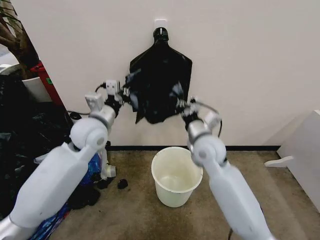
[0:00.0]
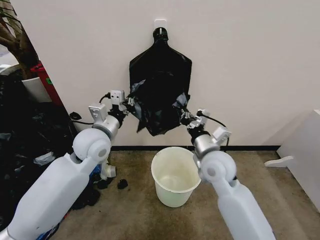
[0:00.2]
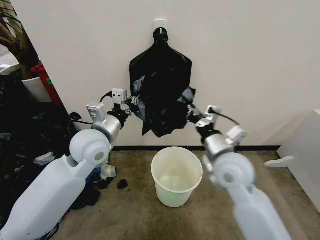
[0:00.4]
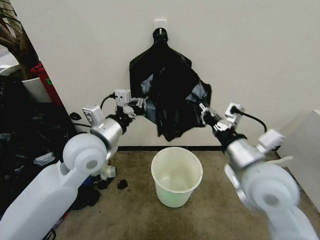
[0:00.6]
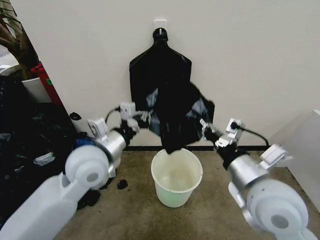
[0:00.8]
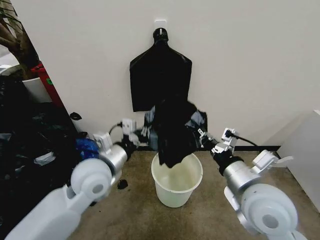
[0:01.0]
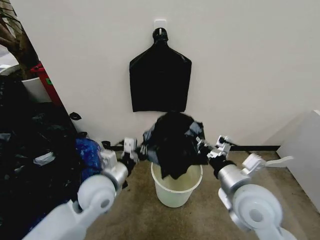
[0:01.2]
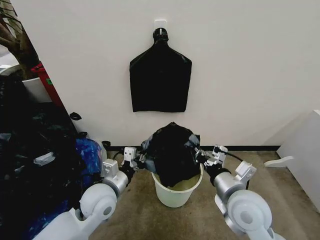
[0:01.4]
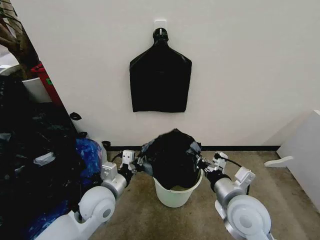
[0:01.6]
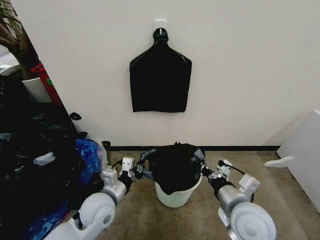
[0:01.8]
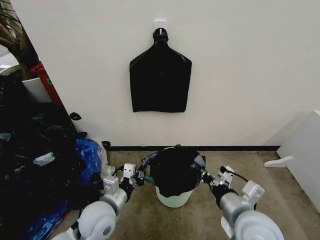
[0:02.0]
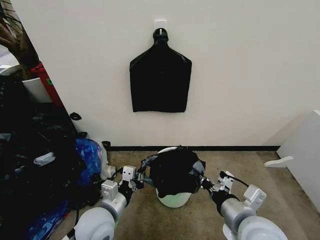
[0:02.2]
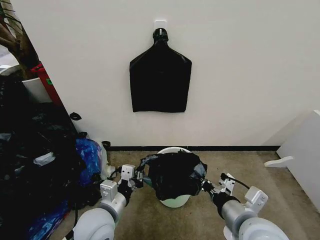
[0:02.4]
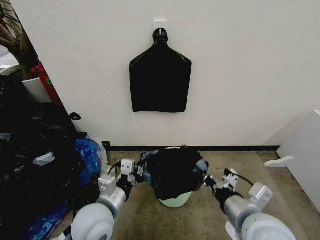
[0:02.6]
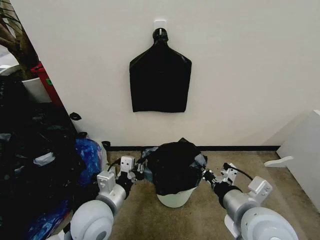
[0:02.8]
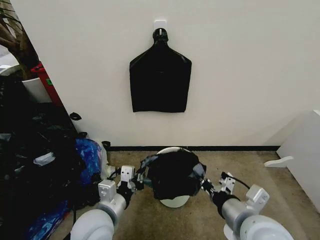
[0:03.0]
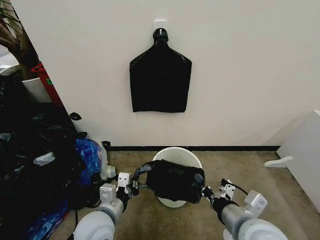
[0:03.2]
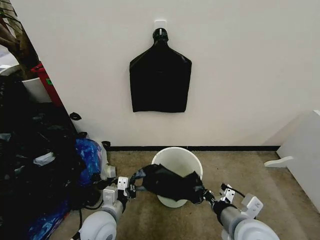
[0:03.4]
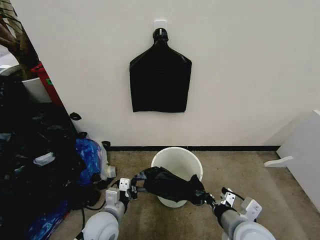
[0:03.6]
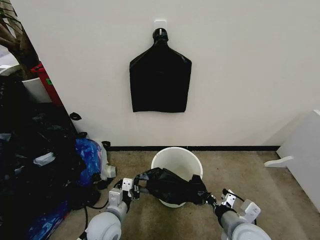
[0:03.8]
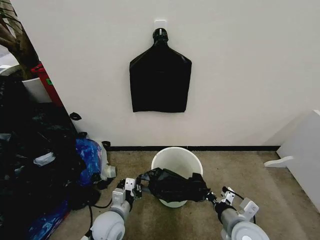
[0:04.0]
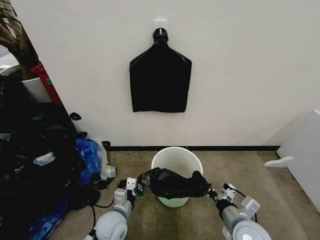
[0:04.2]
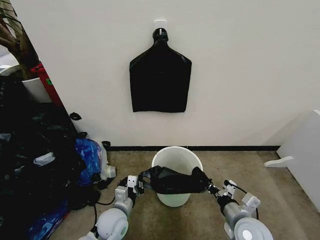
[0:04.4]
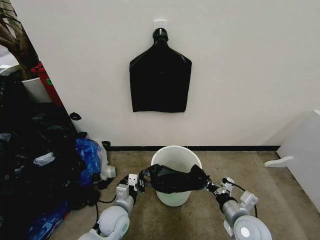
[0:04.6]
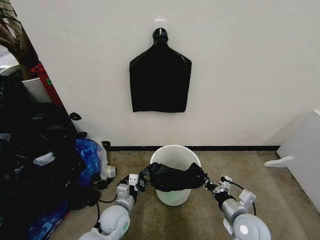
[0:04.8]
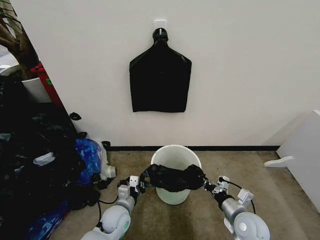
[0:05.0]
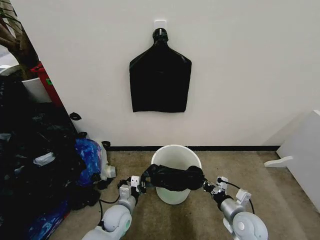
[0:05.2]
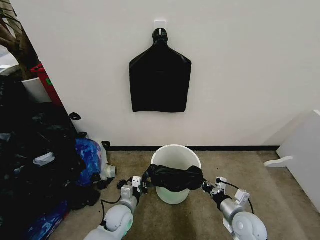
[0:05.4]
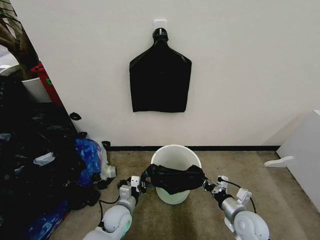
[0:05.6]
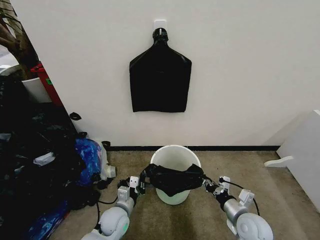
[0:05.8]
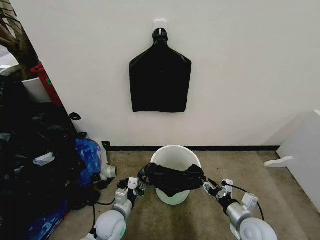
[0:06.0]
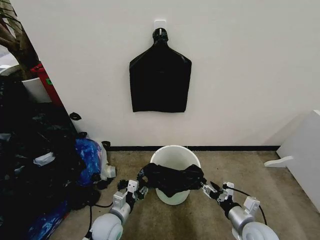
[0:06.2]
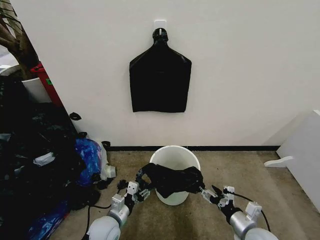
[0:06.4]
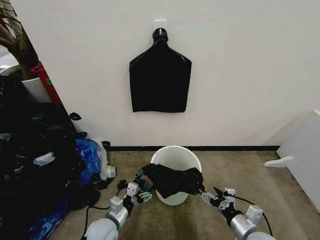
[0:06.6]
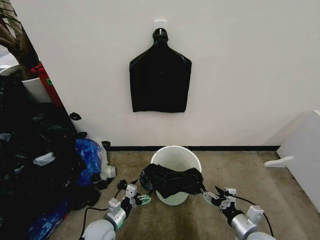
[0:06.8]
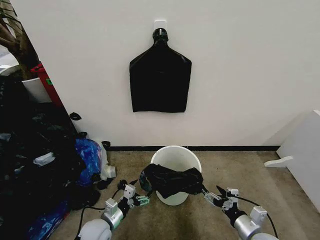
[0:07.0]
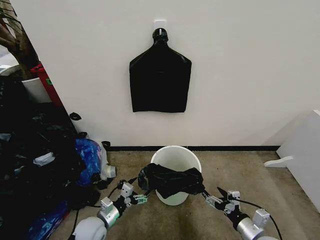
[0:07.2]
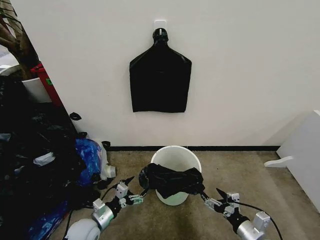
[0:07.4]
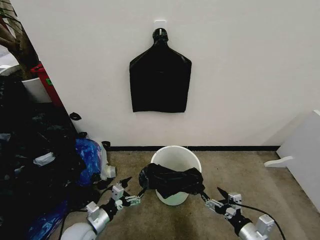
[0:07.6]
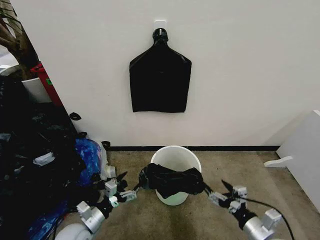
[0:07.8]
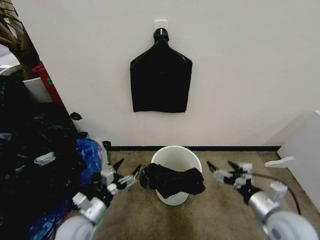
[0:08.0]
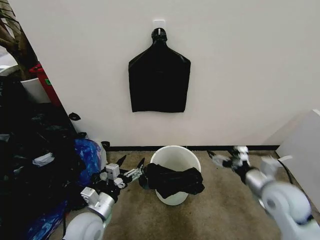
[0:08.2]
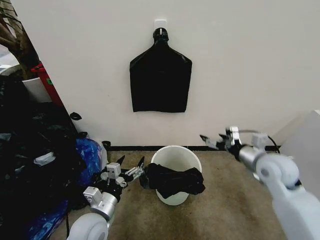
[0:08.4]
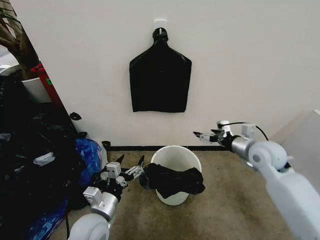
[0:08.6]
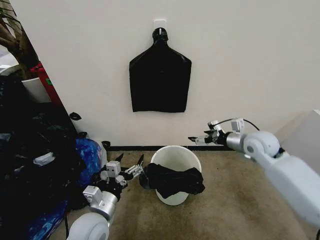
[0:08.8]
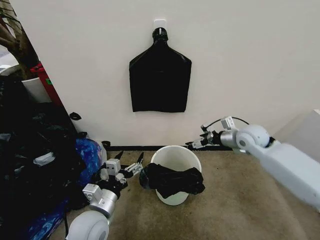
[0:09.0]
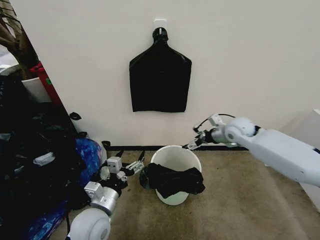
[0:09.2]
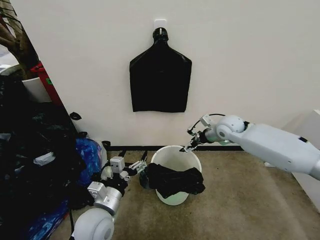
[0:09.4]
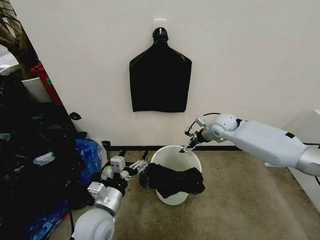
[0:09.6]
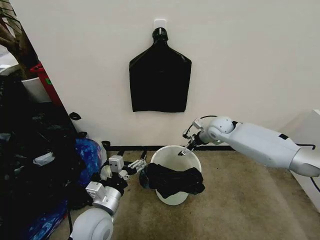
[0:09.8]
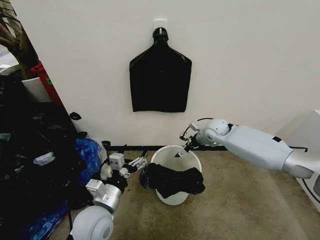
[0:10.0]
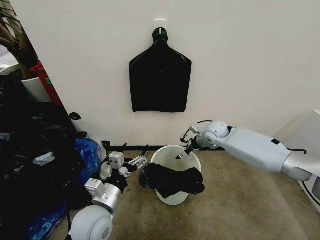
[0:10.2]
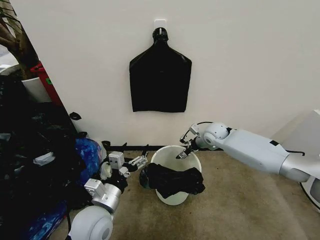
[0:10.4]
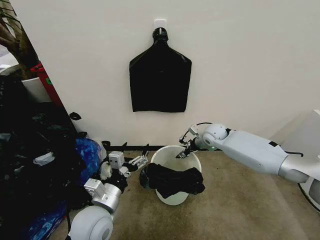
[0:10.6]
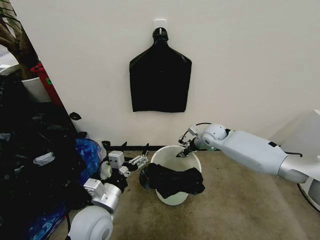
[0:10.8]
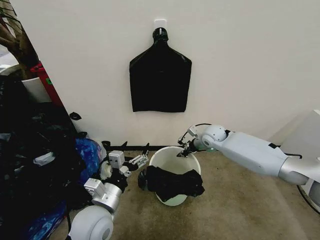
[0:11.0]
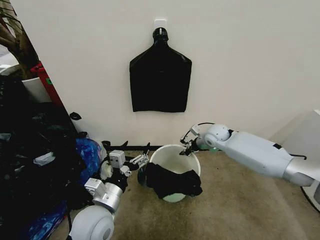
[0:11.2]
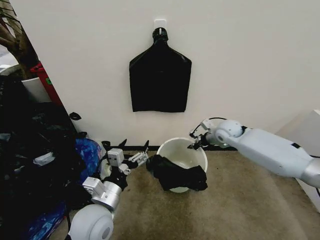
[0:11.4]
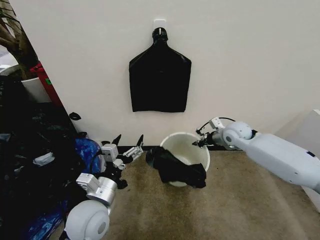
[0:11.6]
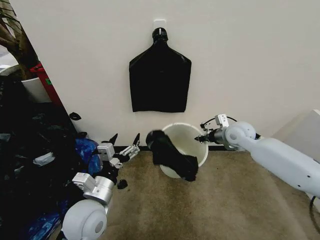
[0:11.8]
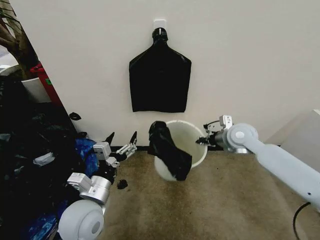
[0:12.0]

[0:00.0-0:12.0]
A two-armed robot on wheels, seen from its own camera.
Task of the whole recording: Place the garbage bag over the trash bin.
0.0 to 1.6 s: The right gripper travels backward and to the right by roughly 20 cm. The left gripper travels downward and backward by roughly 20 cm.
1.6 to 3.0 s: Both grippers move backward, about 5 cm.
3.0 to 4.4 s: The two grippers go about 15 cm downward.
4.4 to 6.0 s: The right gripper ends up approximately 5 cm from where it was, and opens up.
6.0 to 7.6 s: The left gripper travels to the left by some 10 cm, and opens its fingers. Meanwhile the right gripper shifts roughly 5 cm backward, and opens its fingers.
7.6 to 9.0 s: The right gripper goes some 35 cm forward and upward. Meanwhile the left gripper heads upward and to the right, covering some 15 cm.
9.0 to 10.4 s: The right gripper travels forward, to the left and downward by approximately 15 cm.
10.4 to 12.0 s: The right gripper travels backward and upward by approximately 15 cm, and closes.

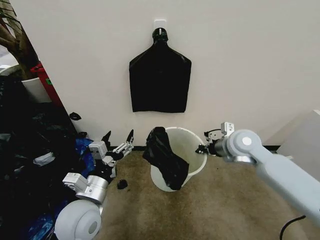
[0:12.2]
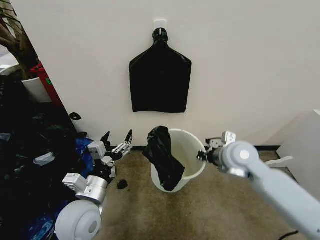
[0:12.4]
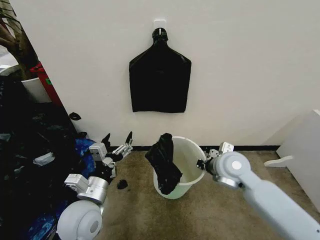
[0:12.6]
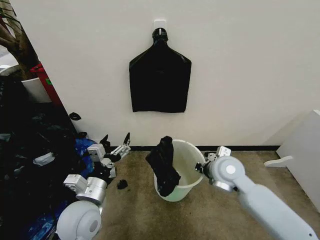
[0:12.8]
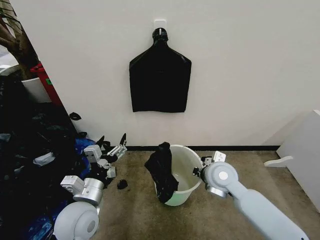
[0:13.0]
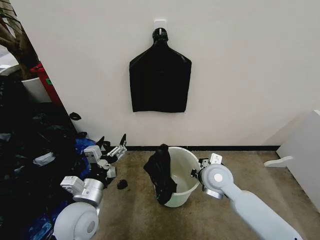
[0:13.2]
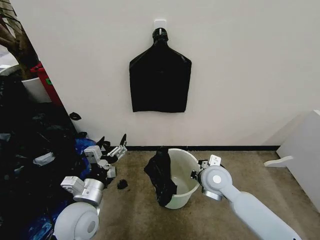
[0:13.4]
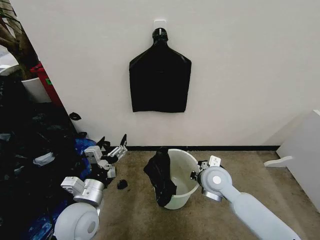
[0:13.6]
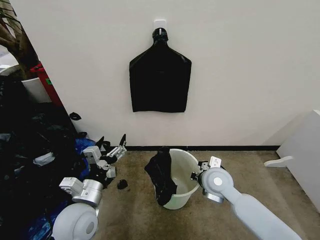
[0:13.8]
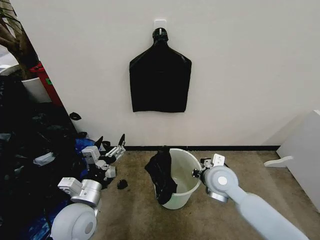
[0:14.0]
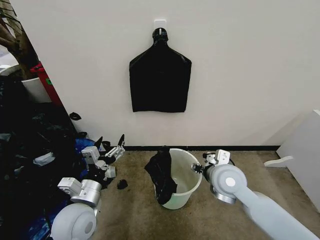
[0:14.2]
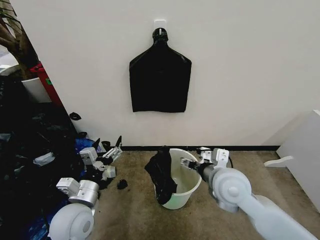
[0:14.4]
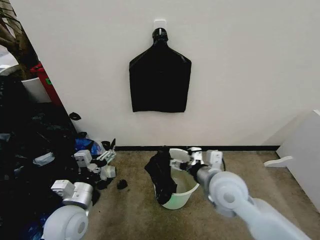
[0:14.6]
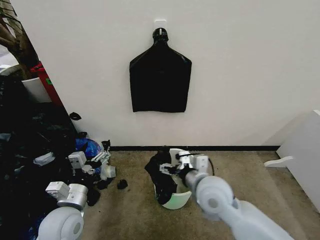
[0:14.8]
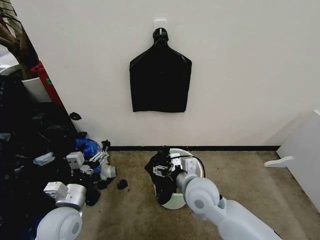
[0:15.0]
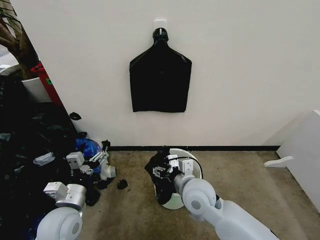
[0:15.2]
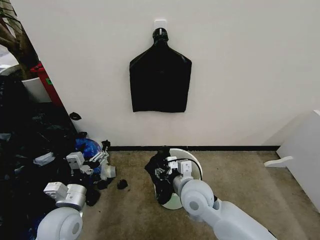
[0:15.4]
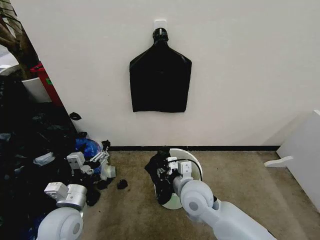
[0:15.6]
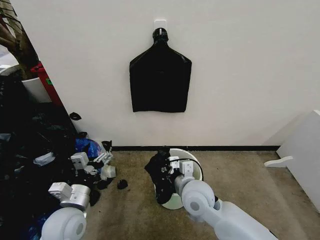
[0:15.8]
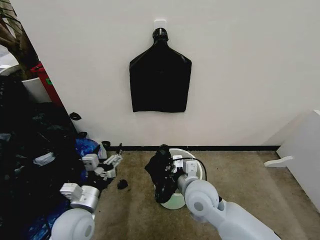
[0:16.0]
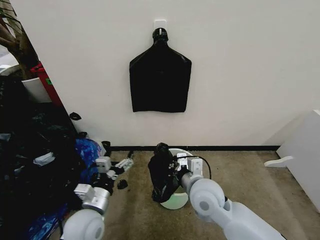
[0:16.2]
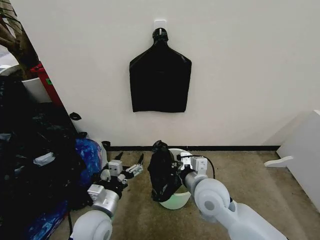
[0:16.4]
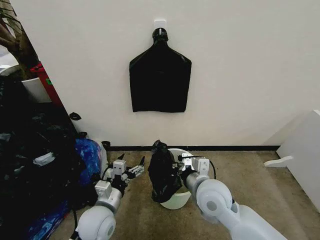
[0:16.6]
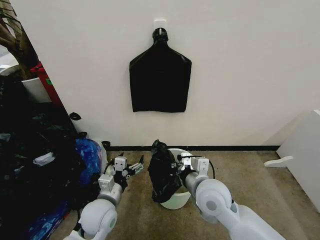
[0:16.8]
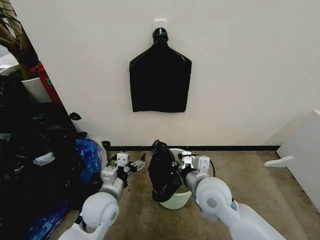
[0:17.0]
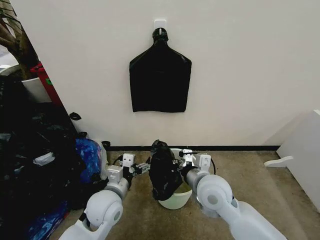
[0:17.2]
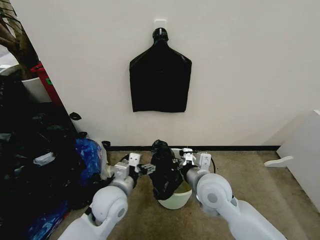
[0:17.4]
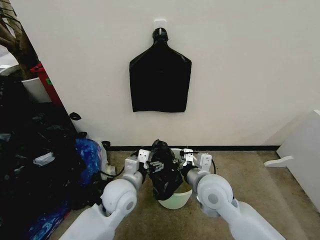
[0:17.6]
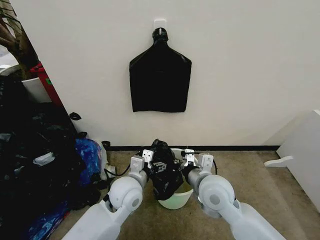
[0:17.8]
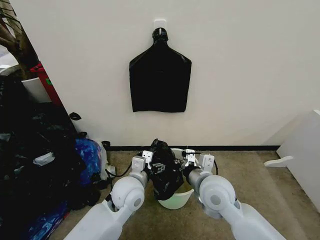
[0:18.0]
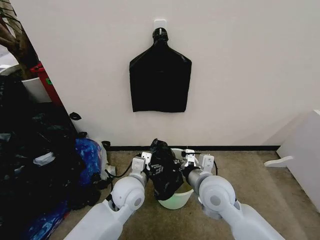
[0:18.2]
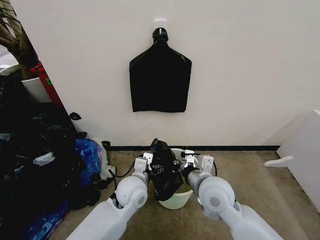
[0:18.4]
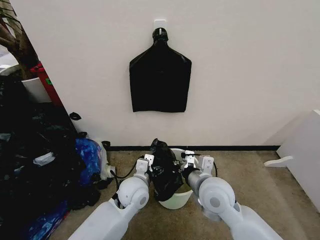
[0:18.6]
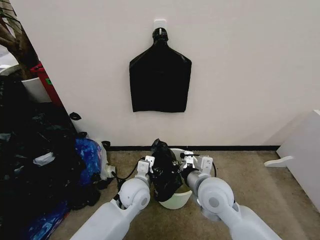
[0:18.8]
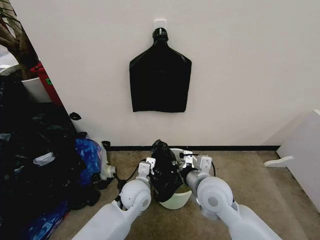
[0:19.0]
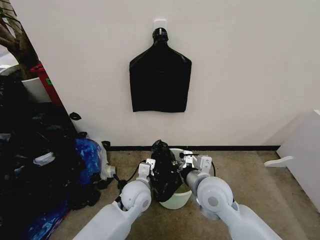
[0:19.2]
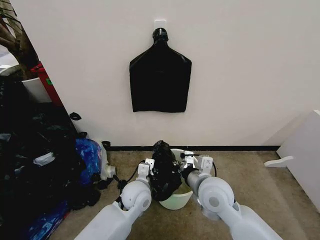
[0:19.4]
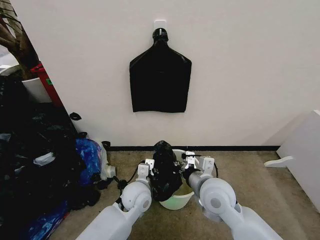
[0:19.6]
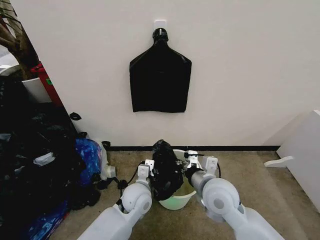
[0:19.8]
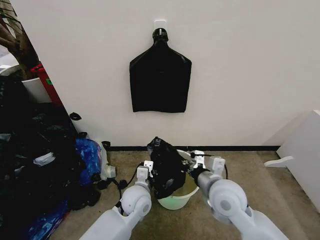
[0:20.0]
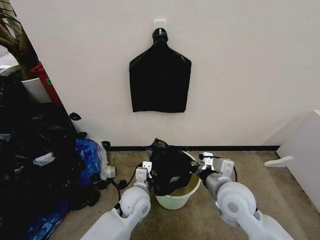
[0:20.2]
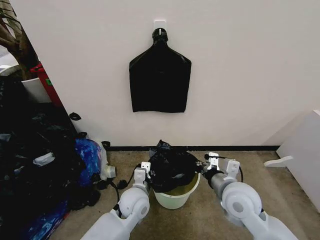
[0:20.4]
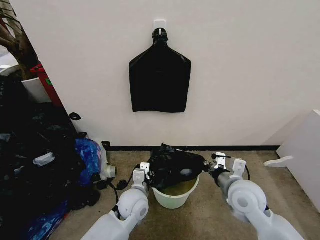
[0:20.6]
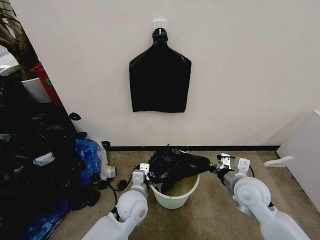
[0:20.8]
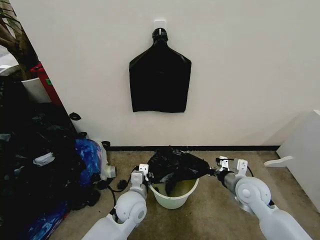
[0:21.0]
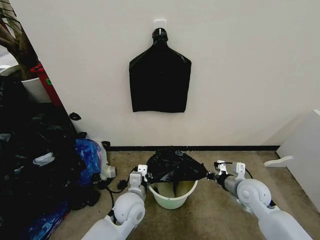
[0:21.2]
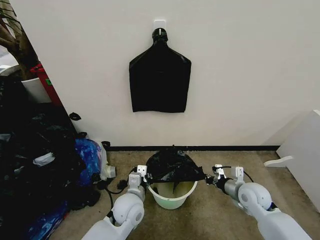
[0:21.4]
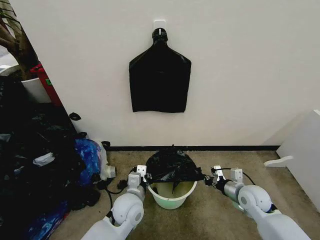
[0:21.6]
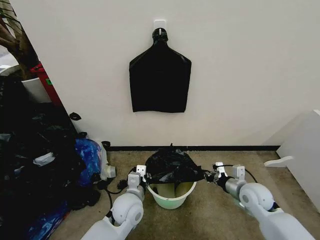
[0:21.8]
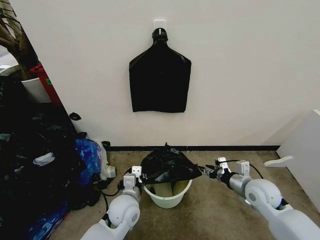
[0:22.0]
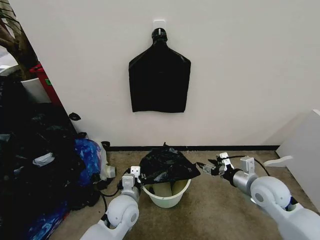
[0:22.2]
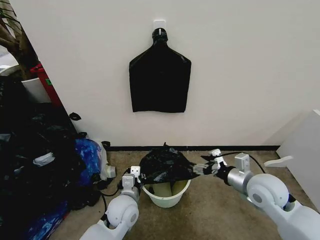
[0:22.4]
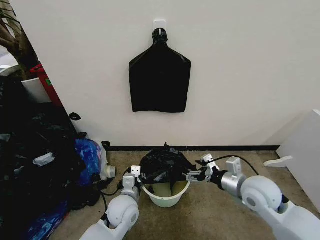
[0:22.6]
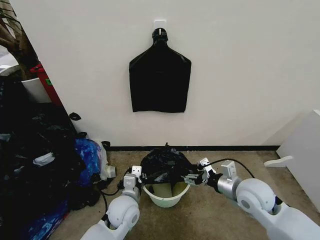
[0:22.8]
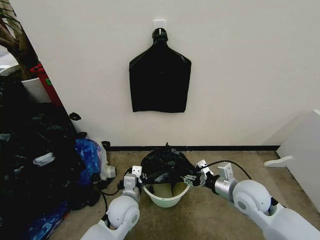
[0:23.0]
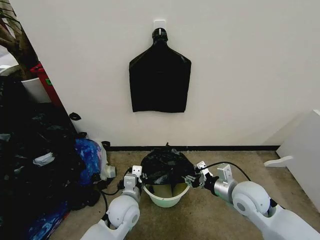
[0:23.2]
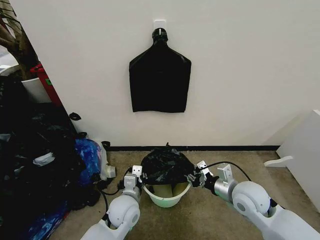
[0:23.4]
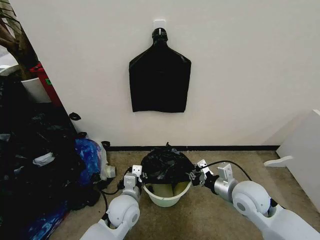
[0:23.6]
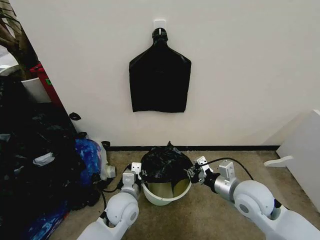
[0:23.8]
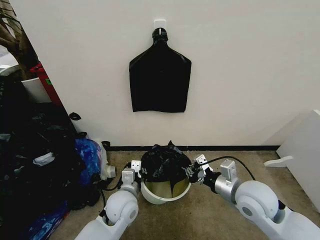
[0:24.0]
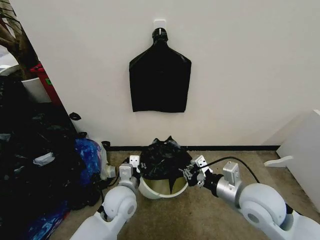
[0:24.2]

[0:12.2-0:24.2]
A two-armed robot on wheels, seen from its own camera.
Task of the whole recording: Place the garbage bag over the trash bin.
12.2 to 13.8 s: The right gripper goes roughly 15 cm downward, backward and to the left.
13.8 to 15.2 s: The right gripper travels to the left and backward by approximately 10 cm, and opens up, while the left gripper moves to the left, some 5 cm.
15.2 to 16.6 s: The right gripper closes its fingers. The left gripper moves to the right, approximately 10 cm.
16.6 to 18.2 s: The left gripper heads to the right and forward, covering roughly 10 cm.
18.2 to 19.8 s: The left gripper heads downward, covering approximately 5 cm, and closes.
19.8 to 21.2 s: The right gripper shifts about 15 cm to the right and downward.
21.2 to 22.6 s: The right gripper moves upward, some 5 cm, and opens up.
22.6 to 24.2 s: The left gripper moves upward, some 5 cm; the right gripper changes place by roughly 5 cm, and closes up.
